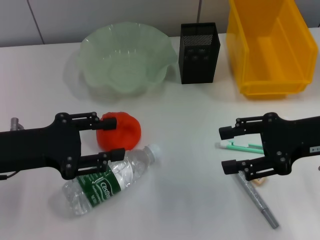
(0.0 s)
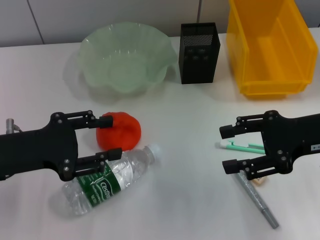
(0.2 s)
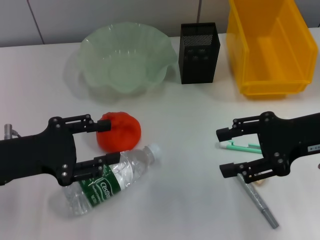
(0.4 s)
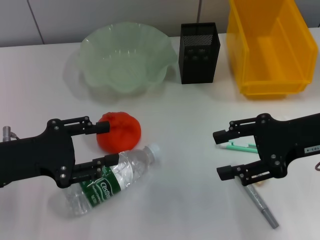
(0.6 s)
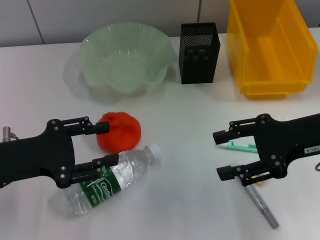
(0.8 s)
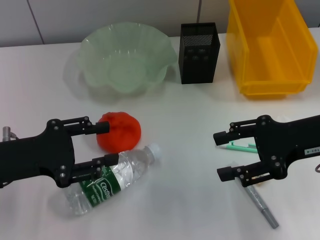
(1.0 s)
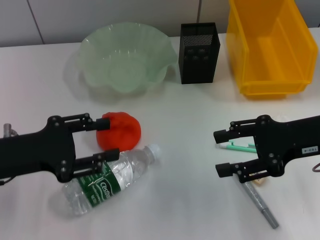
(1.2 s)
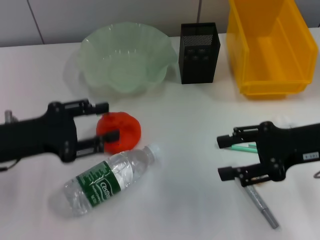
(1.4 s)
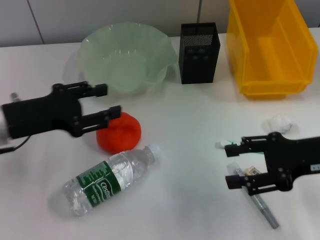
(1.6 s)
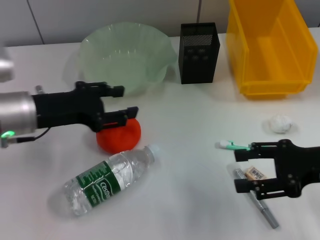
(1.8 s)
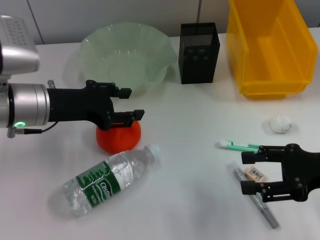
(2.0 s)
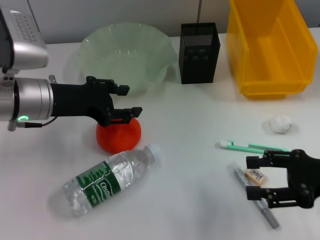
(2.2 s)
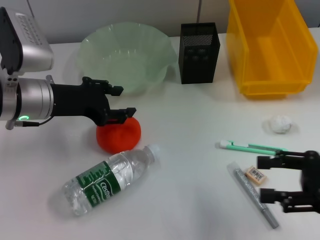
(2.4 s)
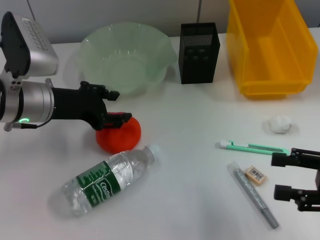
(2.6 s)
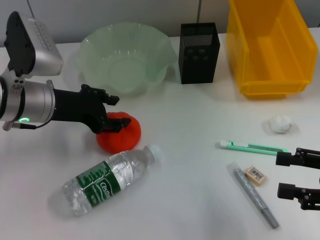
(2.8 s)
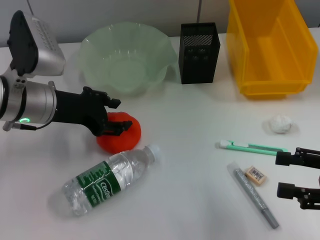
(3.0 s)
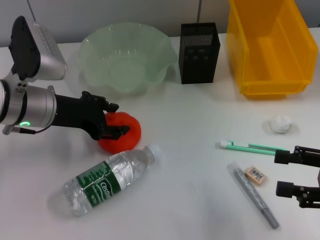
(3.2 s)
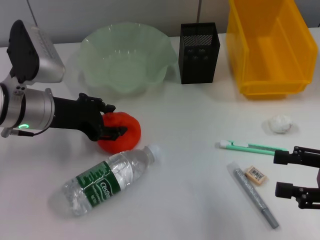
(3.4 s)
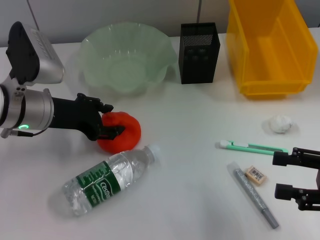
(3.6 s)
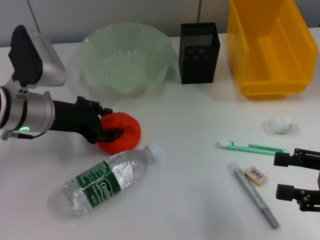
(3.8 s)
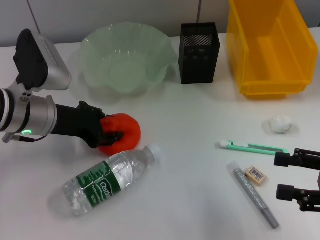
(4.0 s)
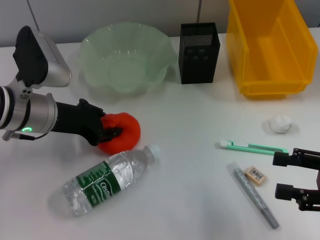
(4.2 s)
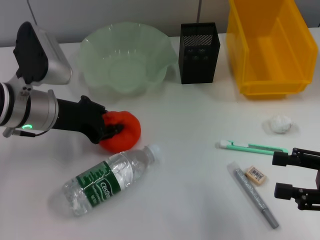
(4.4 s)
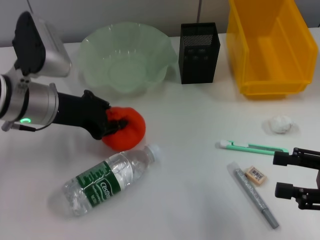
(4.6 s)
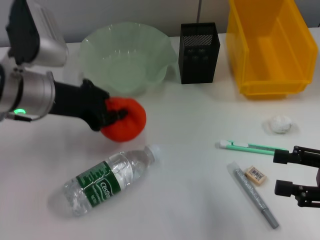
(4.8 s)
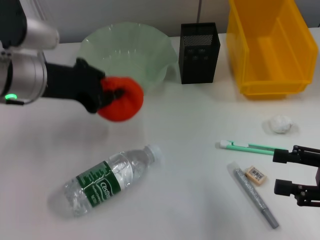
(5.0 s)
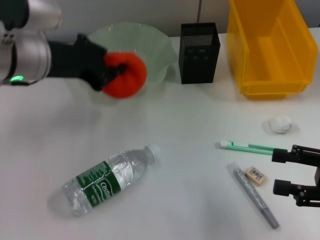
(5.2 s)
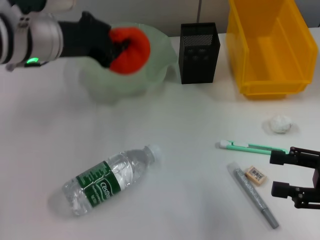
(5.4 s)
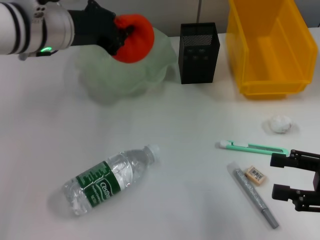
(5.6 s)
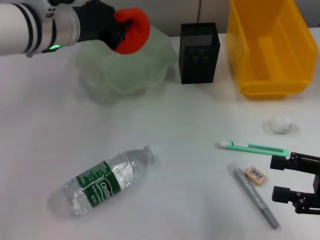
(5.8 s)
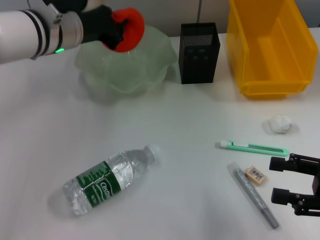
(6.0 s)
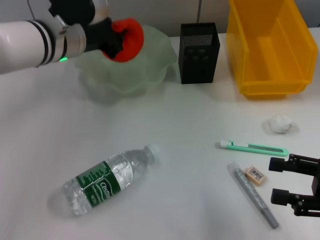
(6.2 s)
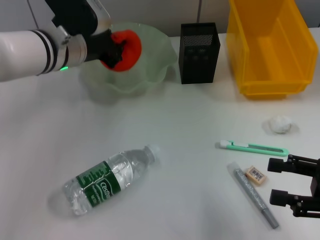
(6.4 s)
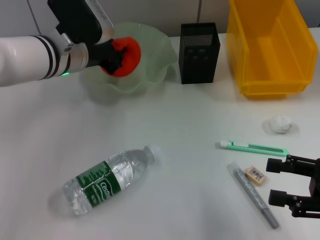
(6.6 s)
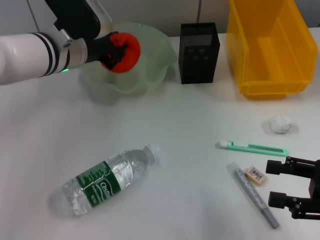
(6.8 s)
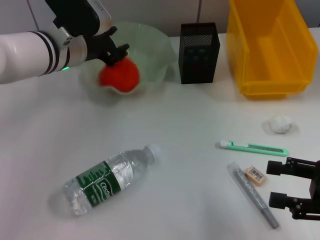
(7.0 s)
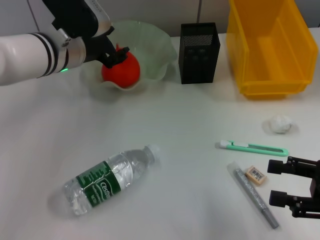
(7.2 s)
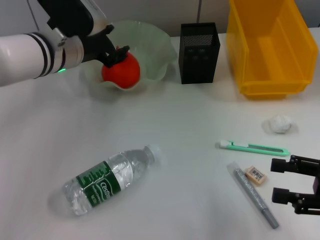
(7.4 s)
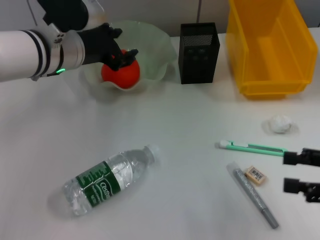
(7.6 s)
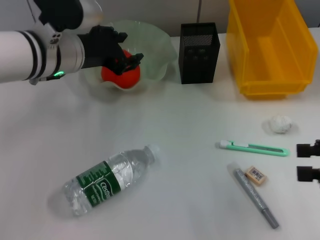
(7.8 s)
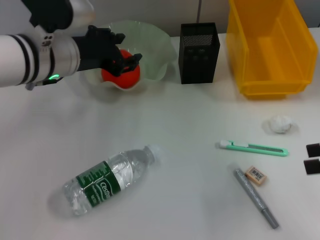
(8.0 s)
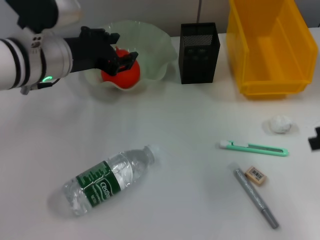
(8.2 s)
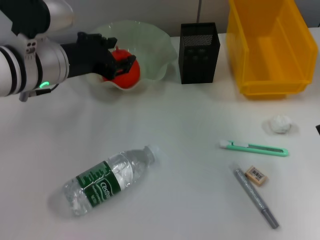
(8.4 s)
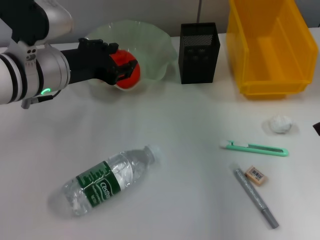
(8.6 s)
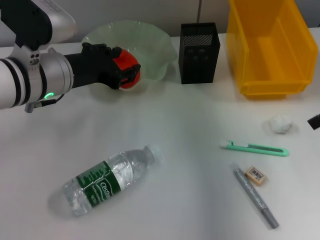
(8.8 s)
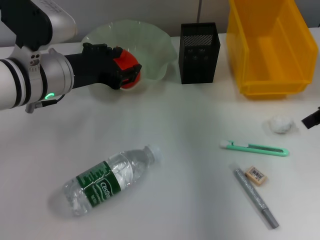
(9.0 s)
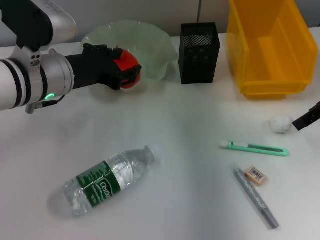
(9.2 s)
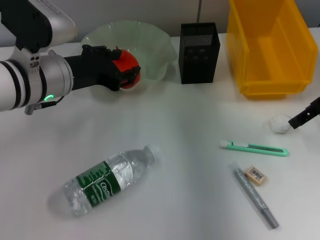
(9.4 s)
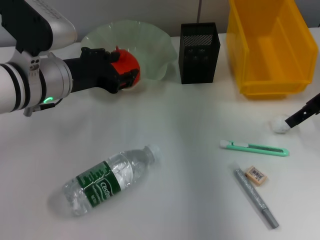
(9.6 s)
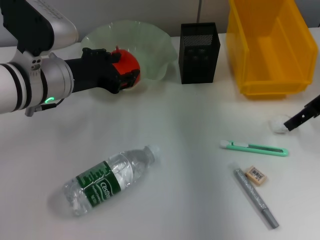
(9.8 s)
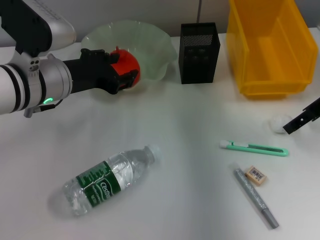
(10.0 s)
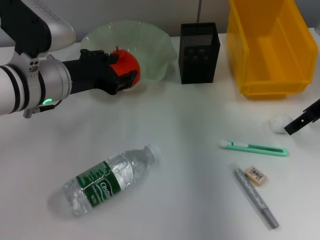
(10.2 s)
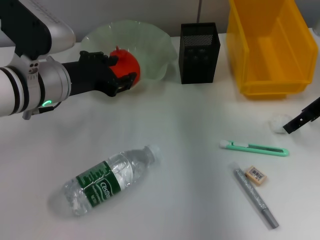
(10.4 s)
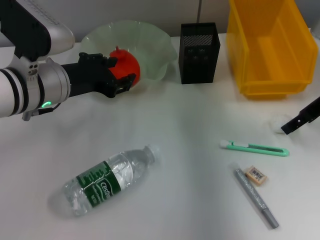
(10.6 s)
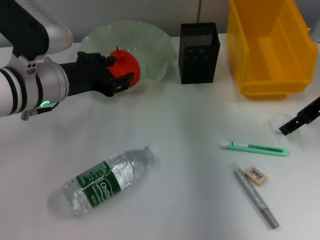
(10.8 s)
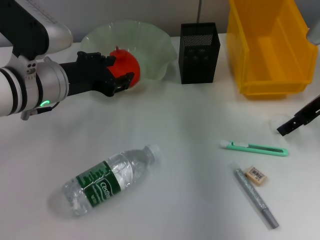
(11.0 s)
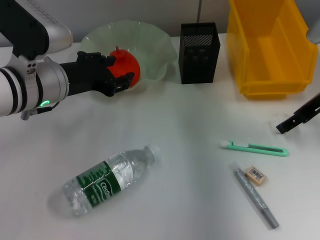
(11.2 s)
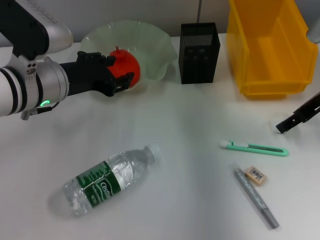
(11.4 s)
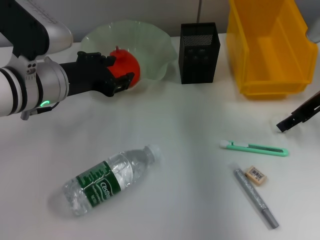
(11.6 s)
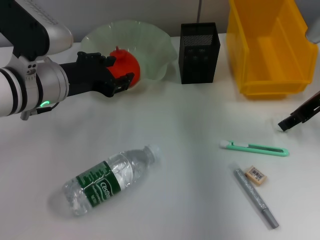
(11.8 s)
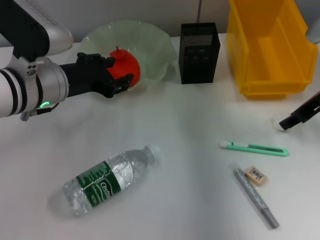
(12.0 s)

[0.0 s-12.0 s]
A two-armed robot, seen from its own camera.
Step, 0.0 to 4.0 s: Grab the orange with the left hand.
Step, 4.2 to 8.4 s: Place the orange into the fruit bowl with the left hand.
0.0 to 1.6 s: The grippers make only small movements.
1.6 to 3.0 s: The right gripper heads backward and to the right, covering about 10 cm. Meanwhile the left gripper shifts roughly 5 cm to the right.
3.0 to 4.4 s: The left gripper closes up.
4.4 to 6.0 s: The left gripper travels forward, upward and to the right by approximately 10 cm.
6.0 to 7.6 s: The left gripper opens.
7.6 to 9.0 s: The right gripper moves forward and upward, some 20 cm.
9.0 to 10.4 s: The right gripper changes place by about 5 cm.
10.4 to 12.0 s: The right gripper closes.

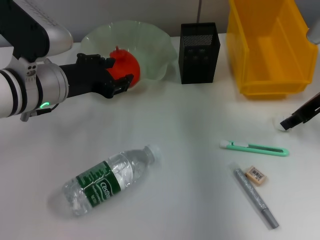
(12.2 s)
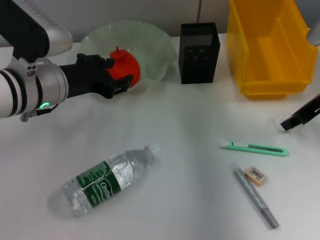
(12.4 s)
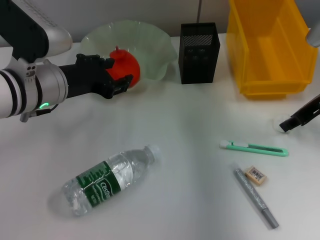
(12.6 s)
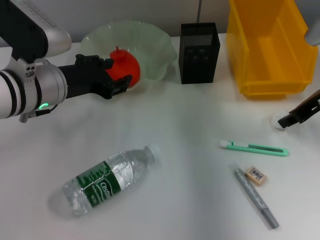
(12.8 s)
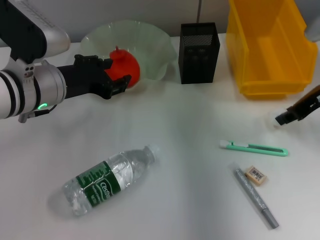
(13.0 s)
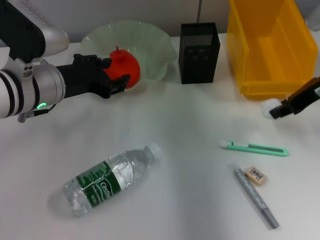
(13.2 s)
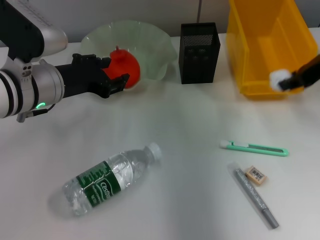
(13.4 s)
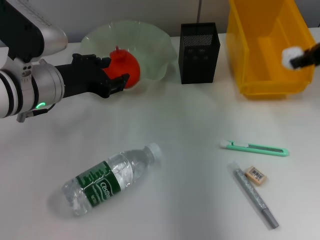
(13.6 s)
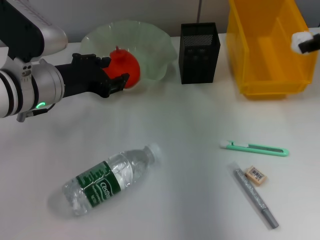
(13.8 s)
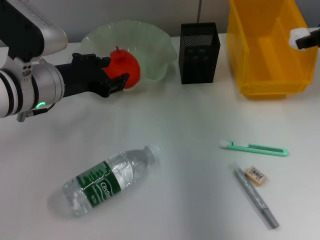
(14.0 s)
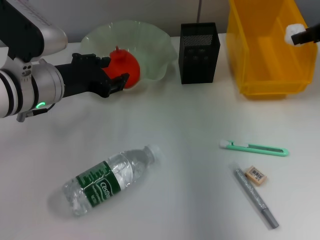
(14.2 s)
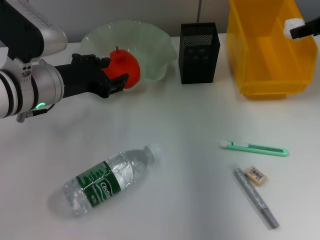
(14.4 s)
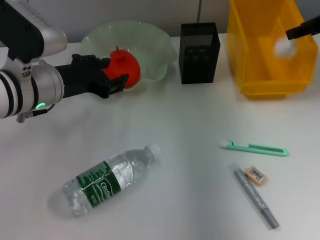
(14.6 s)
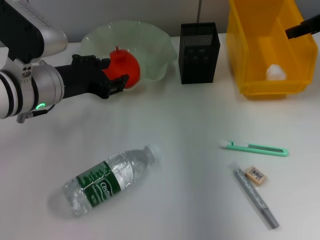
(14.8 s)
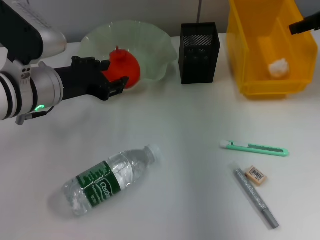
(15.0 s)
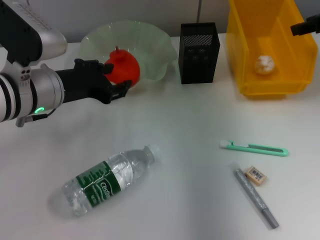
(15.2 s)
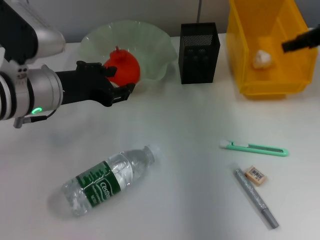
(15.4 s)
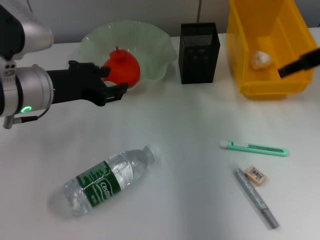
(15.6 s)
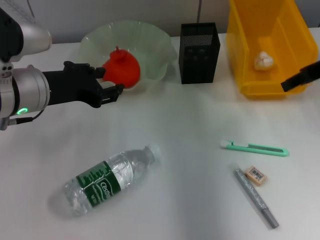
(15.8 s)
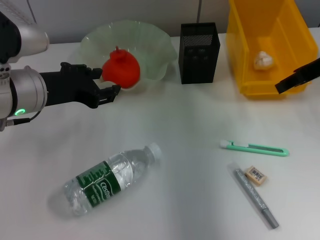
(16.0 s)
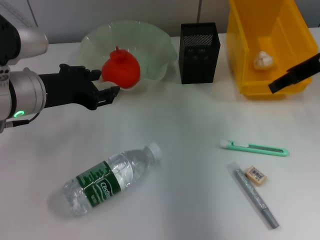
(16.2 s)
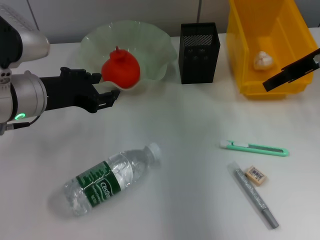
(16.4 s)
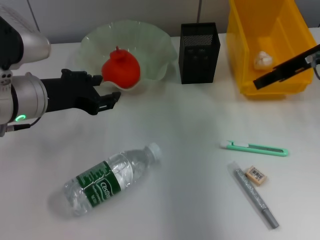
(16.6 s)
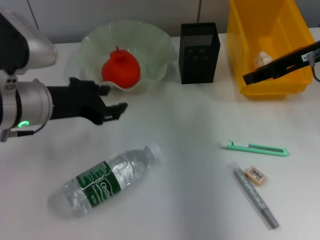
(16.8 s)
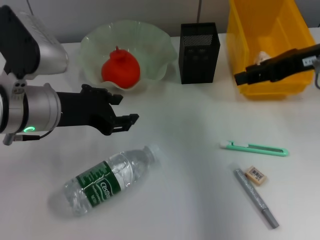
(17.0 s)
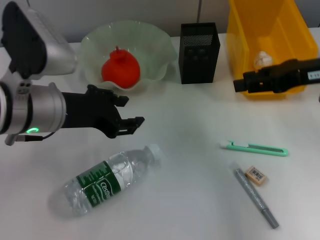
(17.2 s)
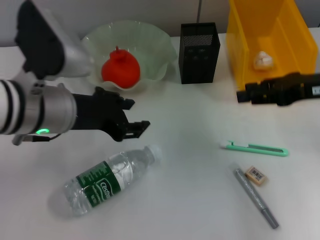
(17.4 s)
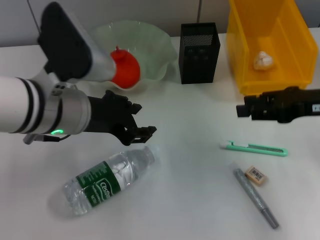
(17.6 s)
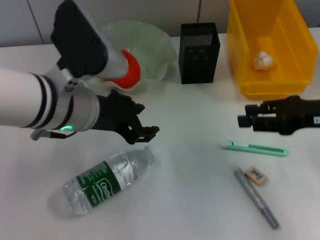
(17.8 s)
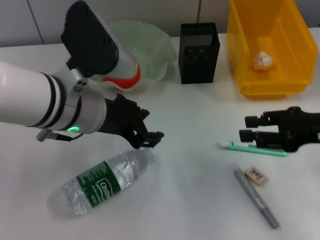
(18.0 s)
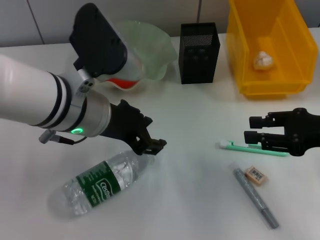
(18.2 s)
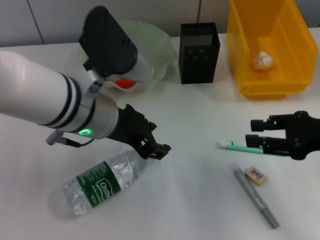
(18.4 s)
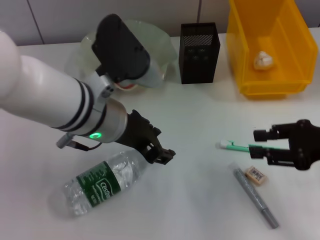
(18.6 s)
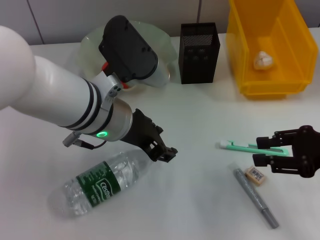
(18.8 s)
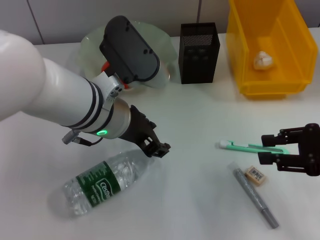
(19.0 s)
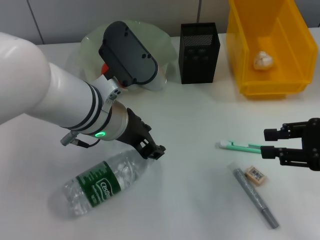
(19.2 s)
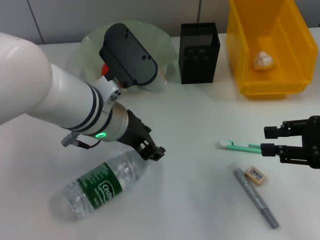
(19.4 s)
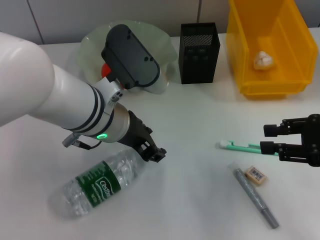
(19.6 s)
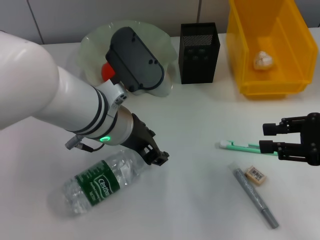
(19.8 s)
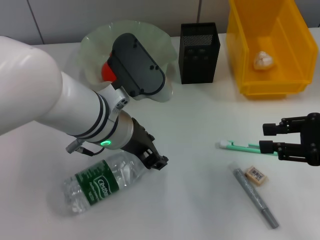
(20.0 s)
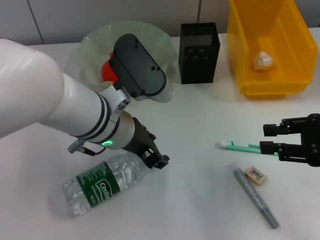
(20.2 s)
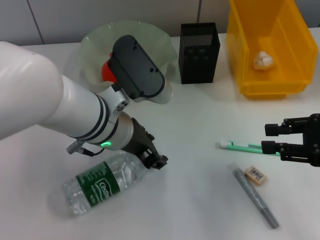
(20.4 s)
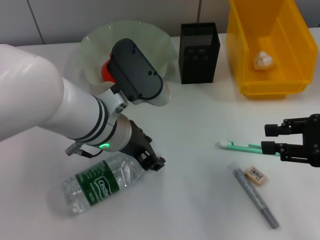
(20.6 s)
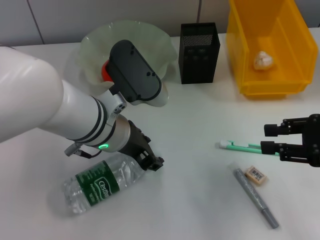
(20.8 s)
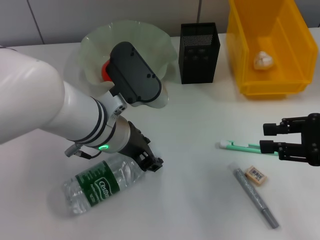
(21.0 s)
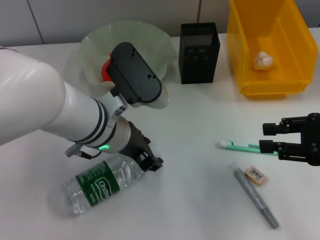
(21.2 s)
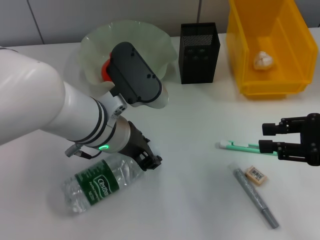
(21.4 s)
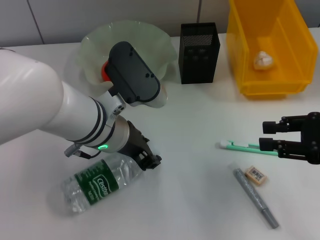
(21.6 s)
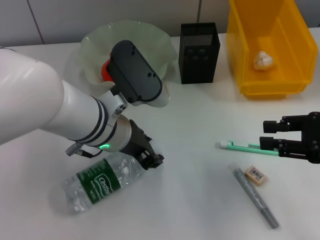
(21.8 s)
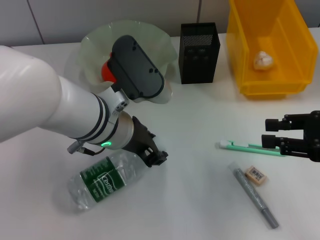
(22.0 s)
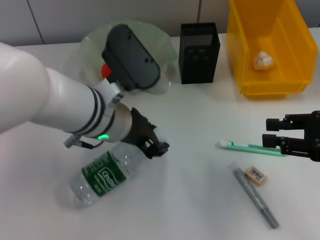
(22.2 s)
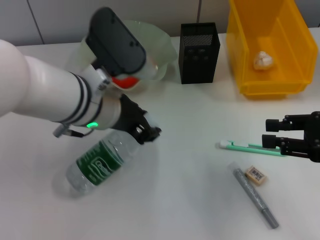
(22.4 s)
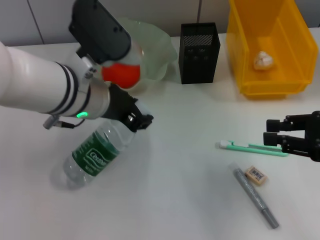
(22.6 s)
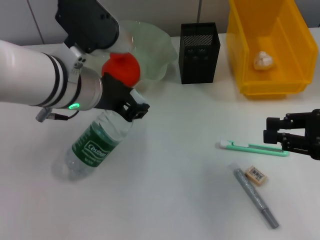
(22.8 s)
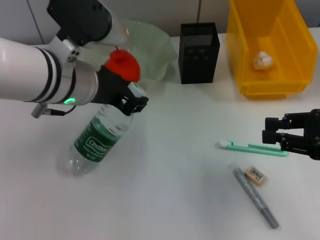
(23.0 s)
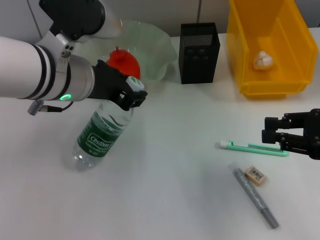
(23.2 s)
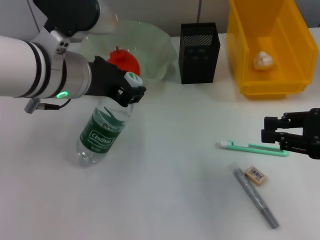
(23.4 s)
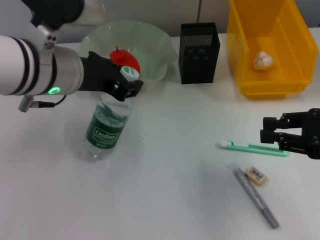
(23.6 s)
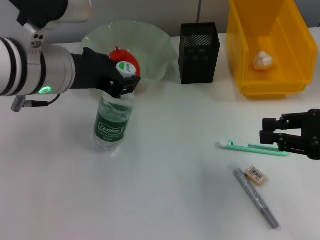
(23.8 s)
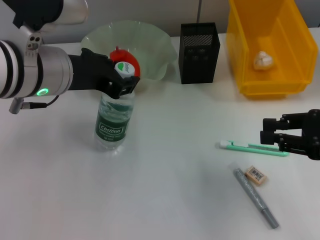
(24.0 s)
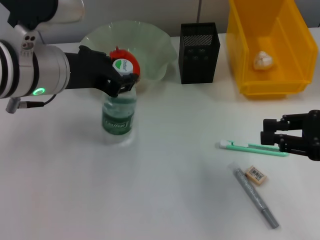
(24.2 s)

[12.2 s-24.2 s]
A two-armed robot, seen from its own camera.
Step, 13.0 to 15.2 s: Place the paper ball into the trash can with the right hand.
Step, 15.4 to 21.4 s: Grab the water bottle with the left hand.
12.2 to 13.8 s: The right gripper goes some 10 cm upward.
13.8 to 15.2 s: There are only small adjustments of the grippers.
15.2 to 16.6 s: The right gripper shifts roughly 5 cm to the left.
16.6 to 18.2 s: The right gripper is displaced backward and downward by about 15 cm. The left gripper shifts roughly 10 cm to the right.
18.2 to 21.2 s: The grippers move only a little.
22.6 to 24.2 s: The left gripper changes place by some 5 cm.
